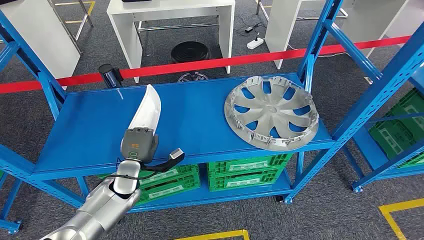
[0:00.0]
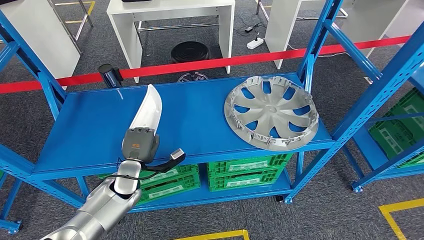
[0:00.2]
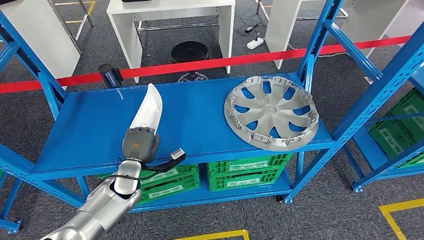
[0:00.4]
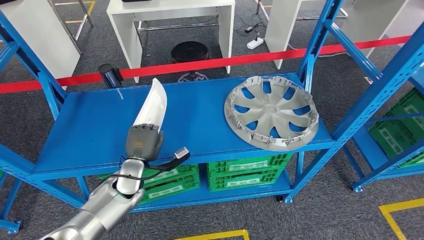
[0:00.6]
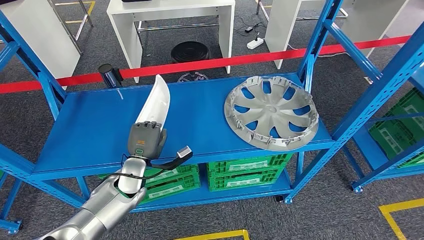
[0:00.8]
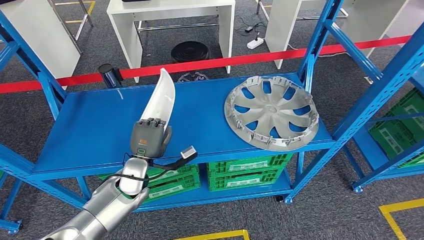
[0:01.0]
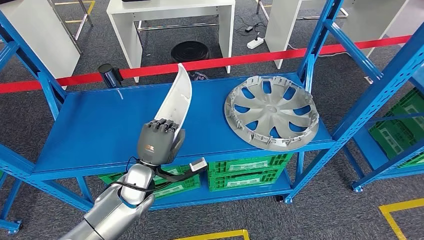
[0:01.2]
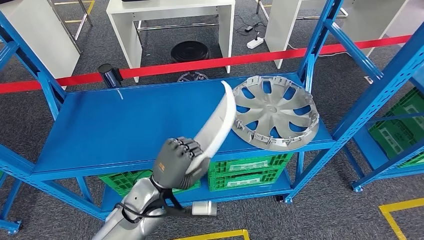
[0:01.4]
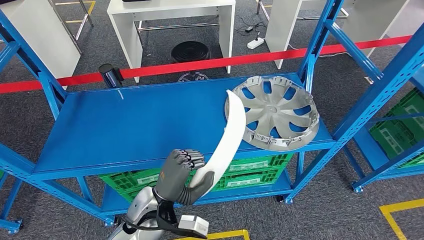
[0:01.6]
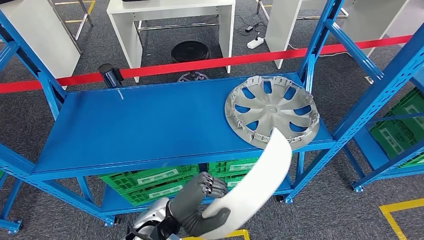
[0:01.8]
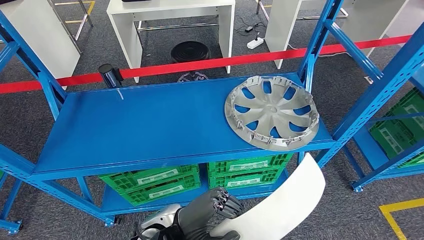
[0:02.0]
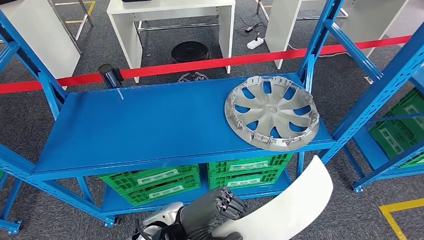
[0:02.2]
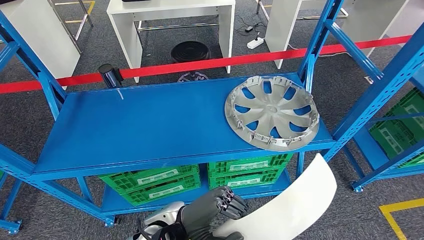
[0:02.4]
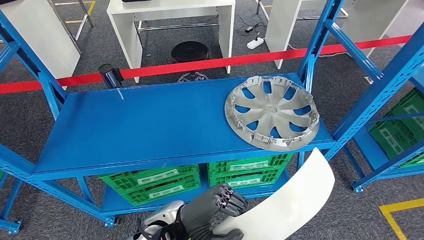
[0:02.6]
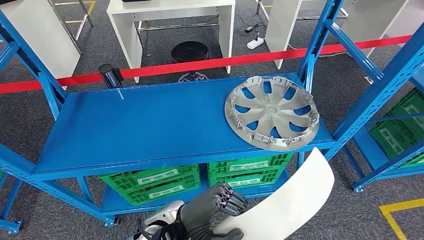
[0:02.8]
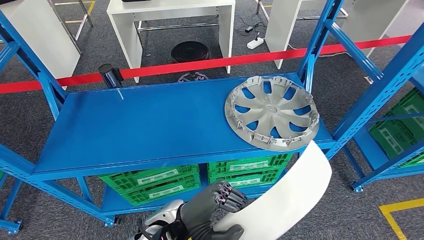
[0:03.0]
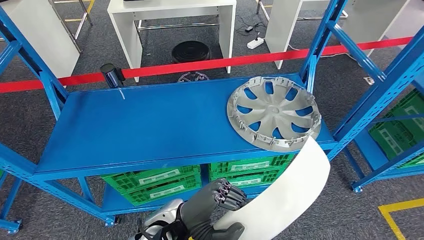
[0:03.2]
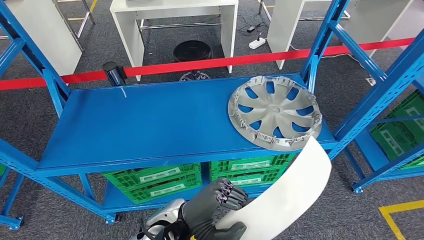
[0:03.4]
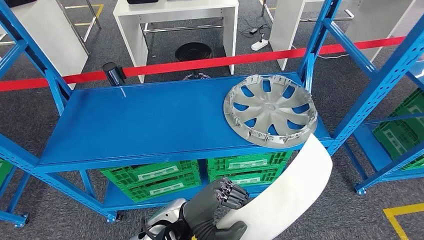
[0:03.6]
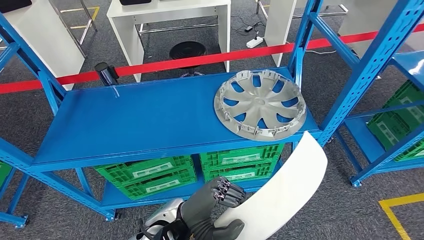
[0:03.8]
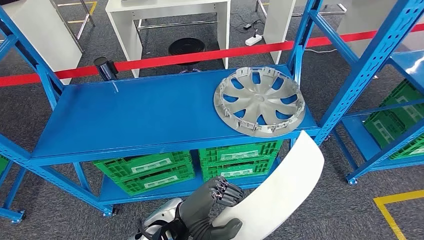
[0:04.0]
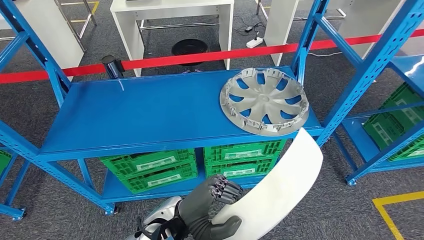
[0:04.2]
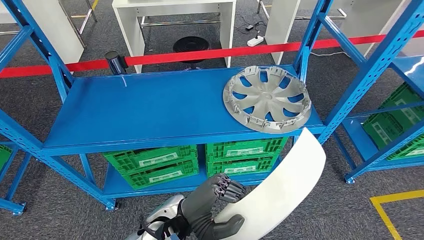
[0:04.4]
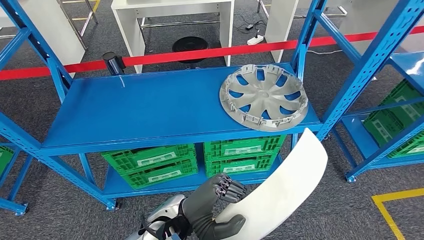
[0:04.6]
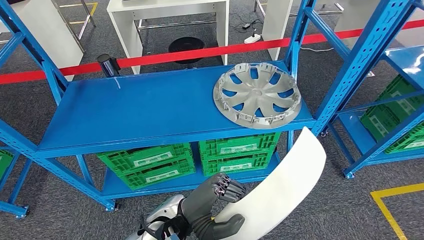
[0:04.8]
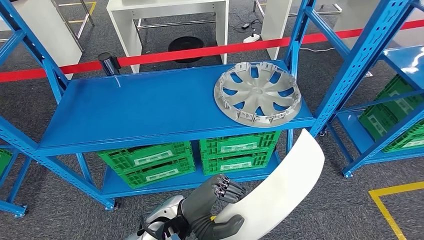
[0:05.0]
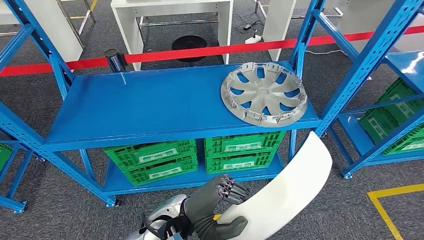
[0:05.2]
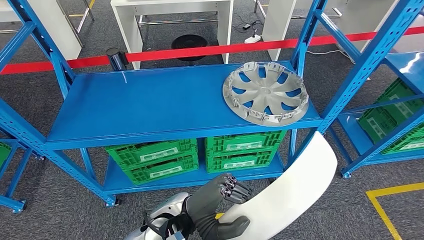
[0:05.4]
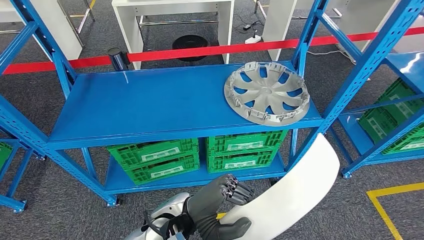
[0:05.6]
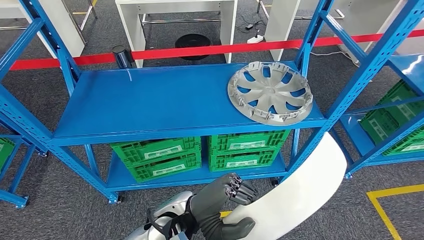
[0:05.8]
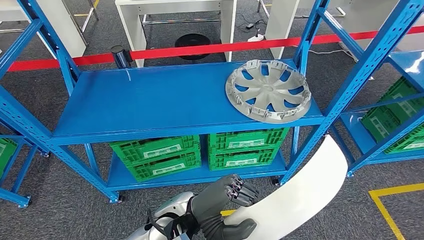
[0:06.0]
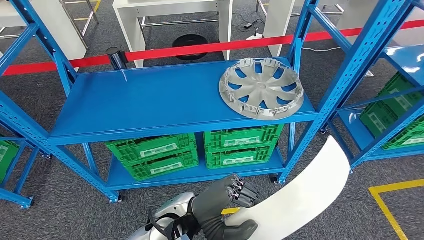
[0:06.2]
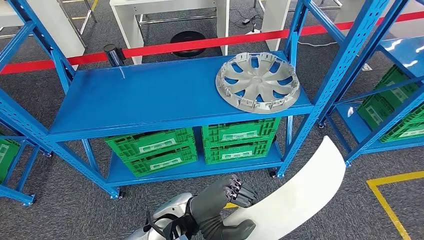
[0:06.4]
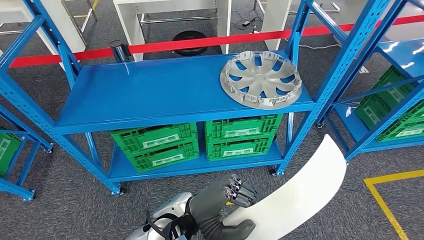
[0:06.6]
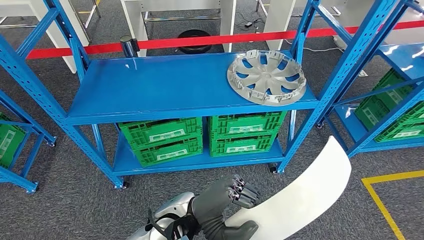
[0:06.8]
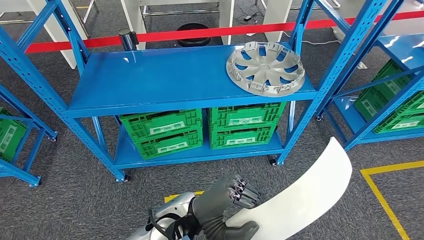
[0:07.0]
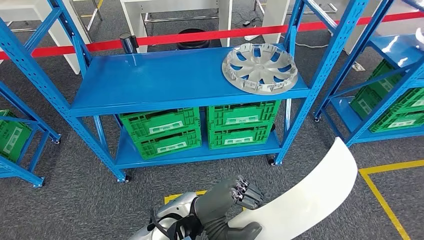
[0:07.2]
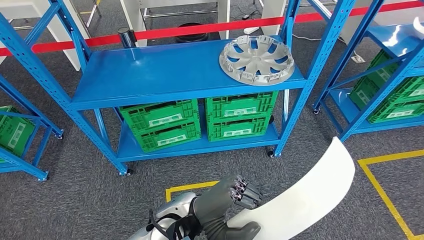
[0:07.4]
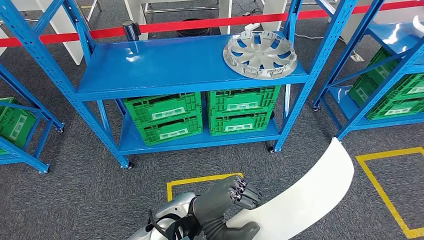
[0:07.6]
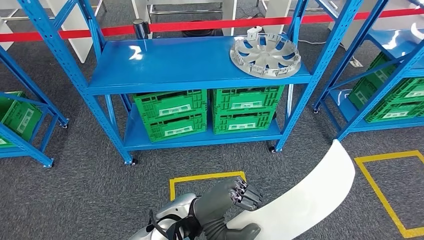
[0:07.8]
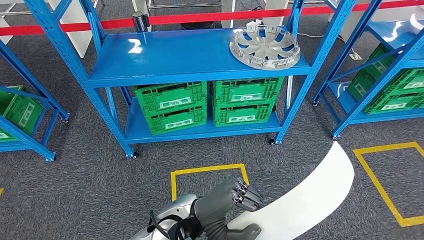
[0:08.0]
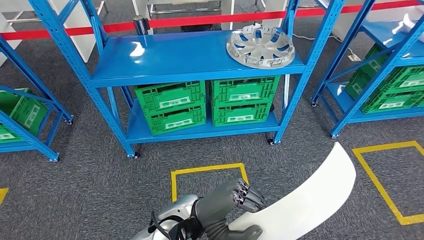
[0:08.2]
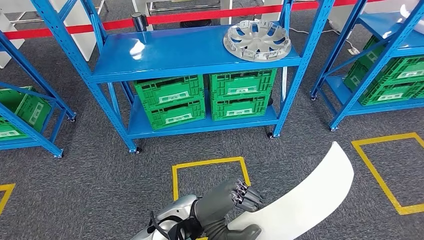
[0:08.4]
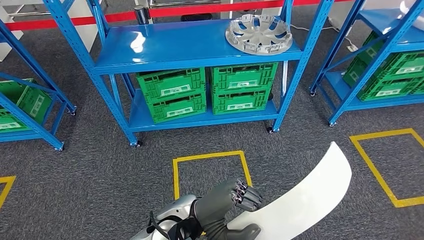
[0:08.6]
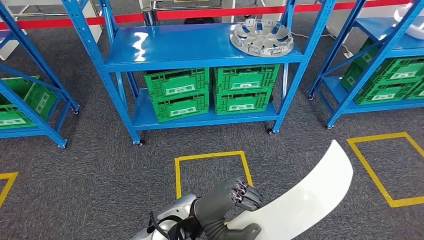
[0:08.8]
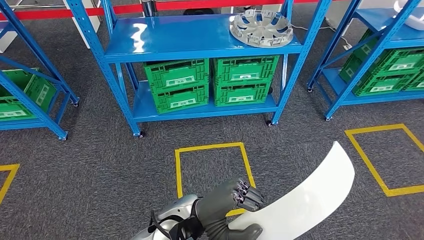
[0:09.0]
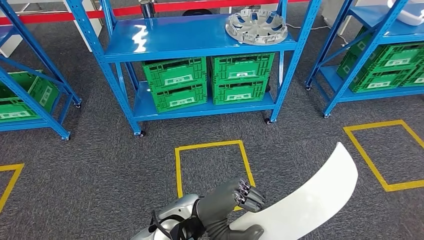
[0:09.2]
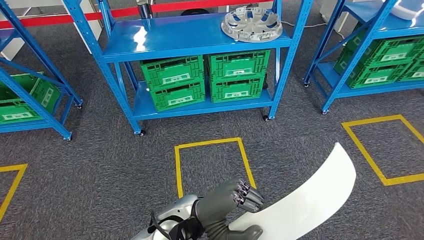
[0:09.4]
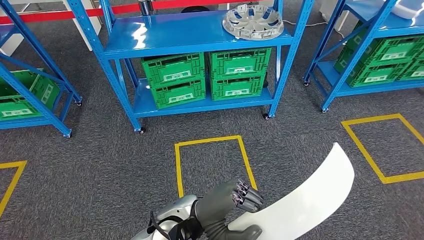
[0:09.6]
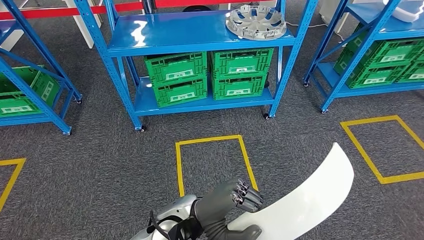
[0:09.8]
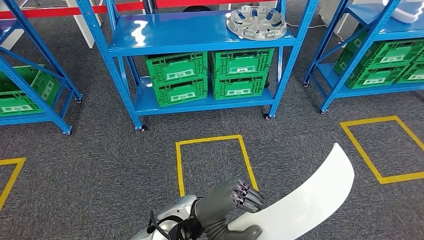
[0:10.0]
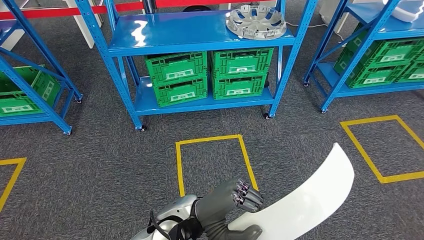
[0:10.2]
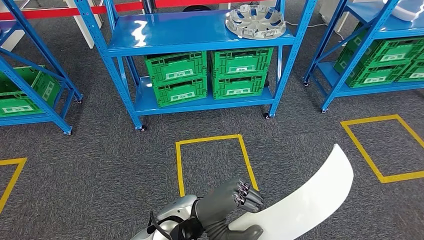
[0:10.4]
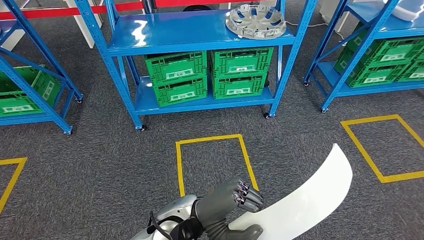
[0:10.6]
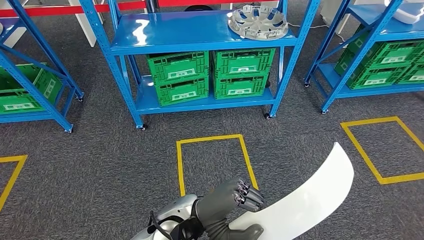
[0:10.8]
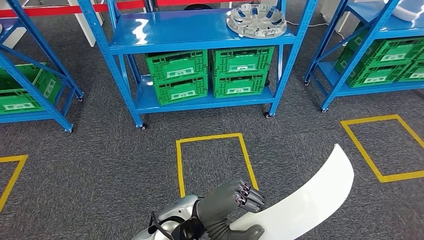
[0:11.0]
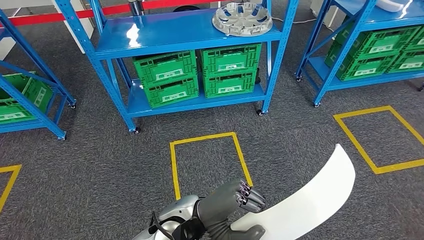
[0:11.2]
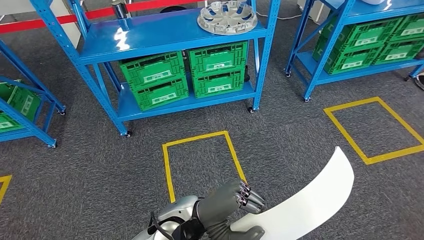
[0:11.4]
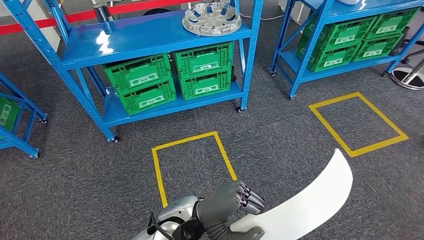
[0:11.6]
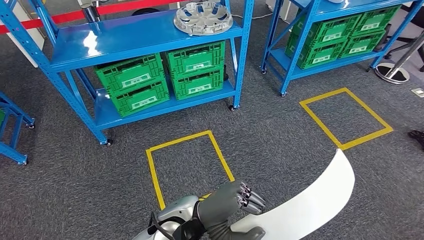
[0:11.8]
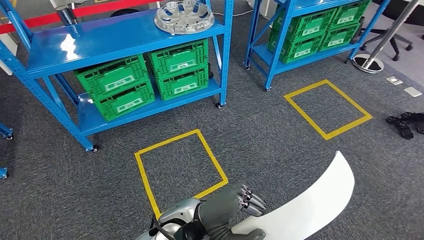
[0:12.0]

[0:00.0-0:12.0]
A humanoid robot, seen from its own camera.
Step, 0:00.0 to 0:03.0: Pick up the small component from the shelf.
0:01.6 to 0:03.0: The left hand goes roughly 5 cm to the right.

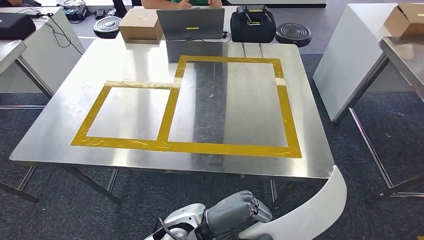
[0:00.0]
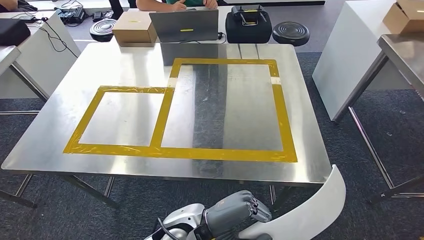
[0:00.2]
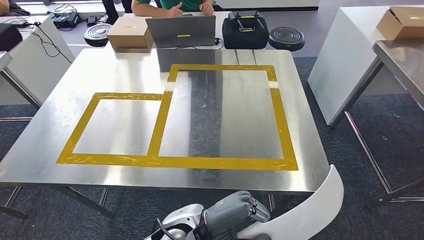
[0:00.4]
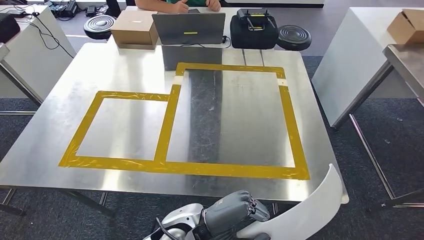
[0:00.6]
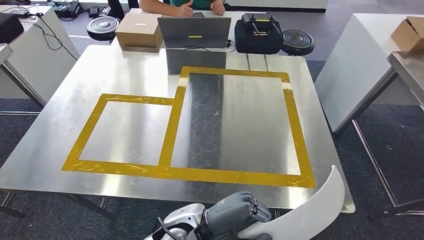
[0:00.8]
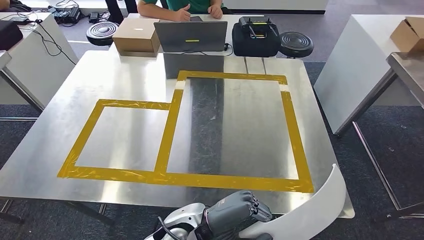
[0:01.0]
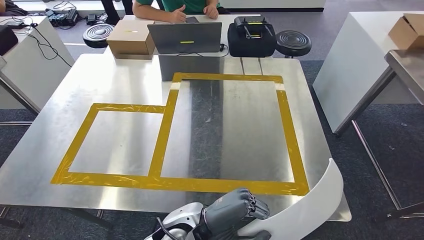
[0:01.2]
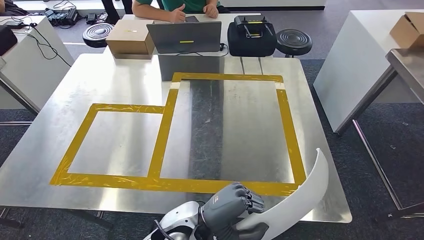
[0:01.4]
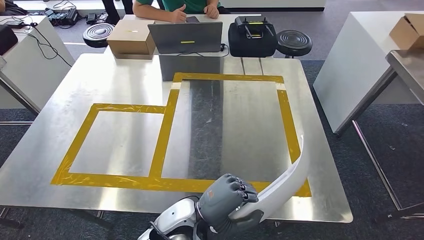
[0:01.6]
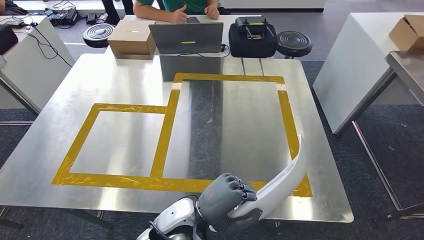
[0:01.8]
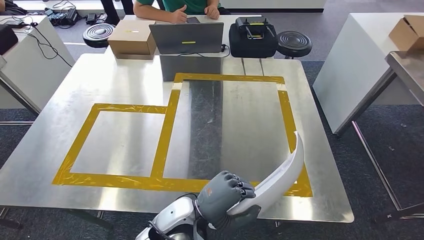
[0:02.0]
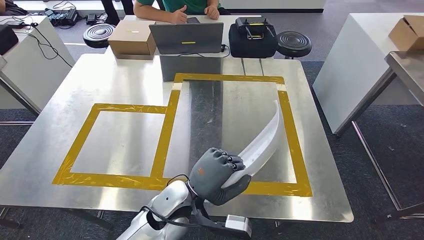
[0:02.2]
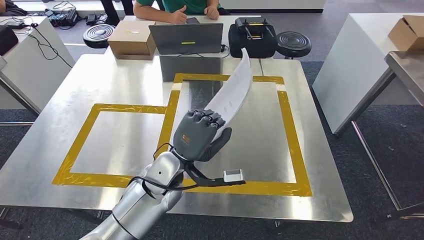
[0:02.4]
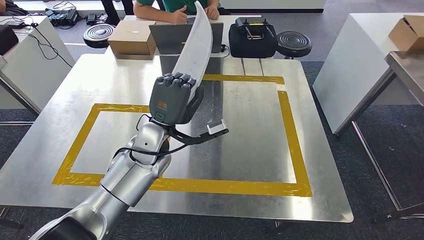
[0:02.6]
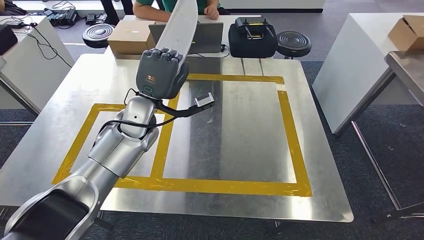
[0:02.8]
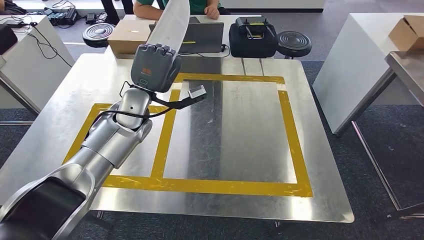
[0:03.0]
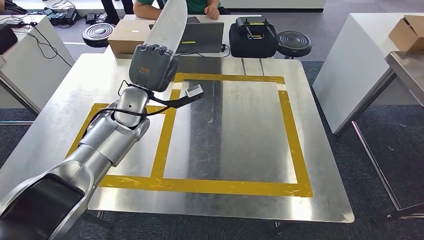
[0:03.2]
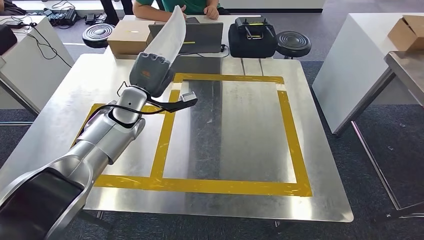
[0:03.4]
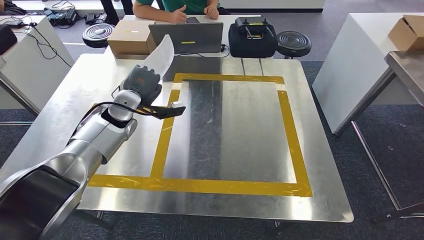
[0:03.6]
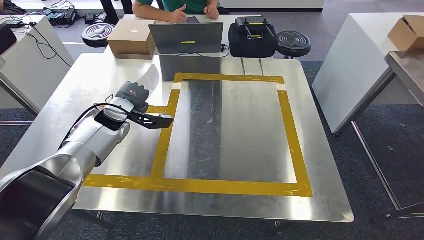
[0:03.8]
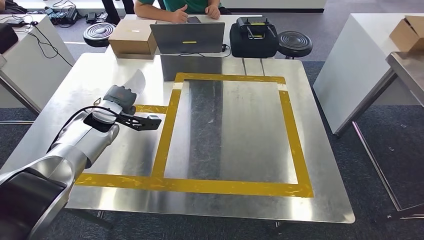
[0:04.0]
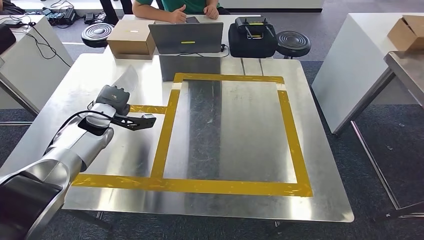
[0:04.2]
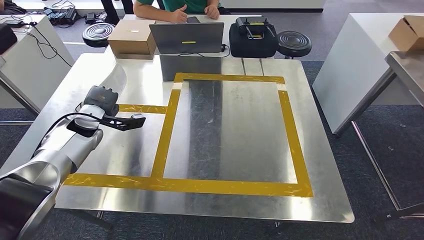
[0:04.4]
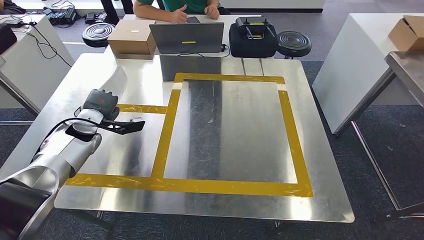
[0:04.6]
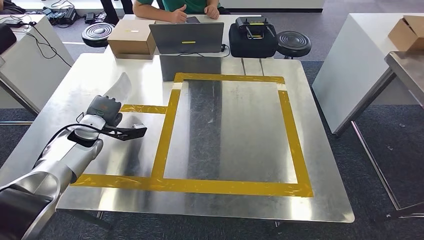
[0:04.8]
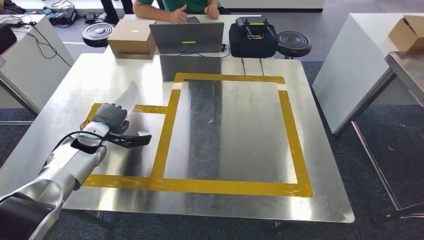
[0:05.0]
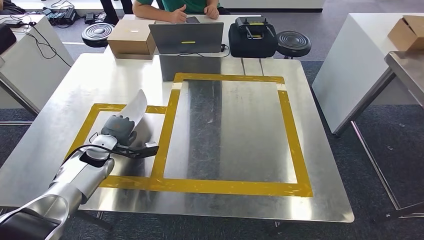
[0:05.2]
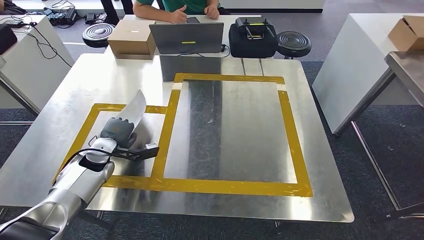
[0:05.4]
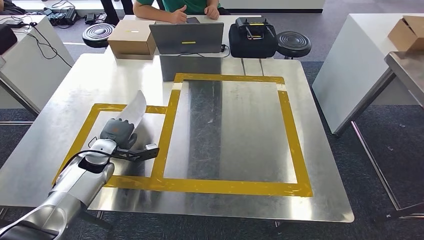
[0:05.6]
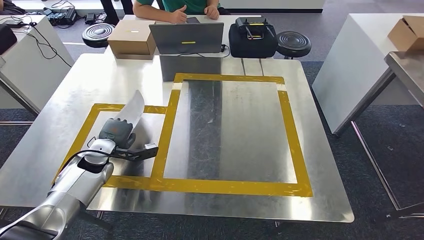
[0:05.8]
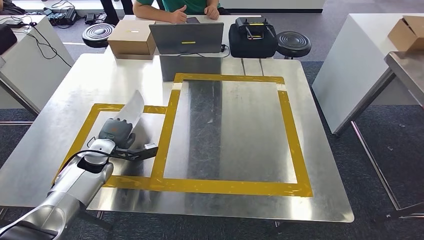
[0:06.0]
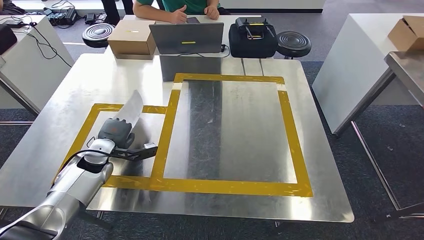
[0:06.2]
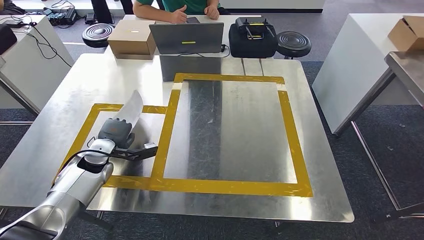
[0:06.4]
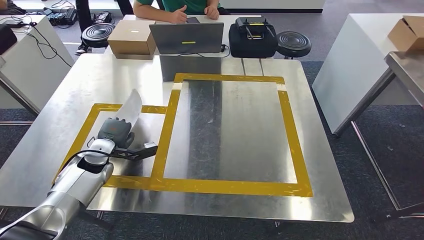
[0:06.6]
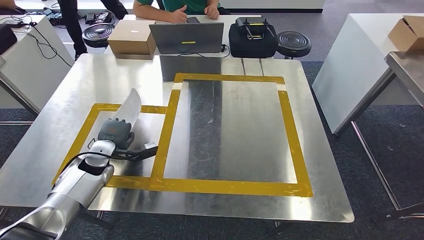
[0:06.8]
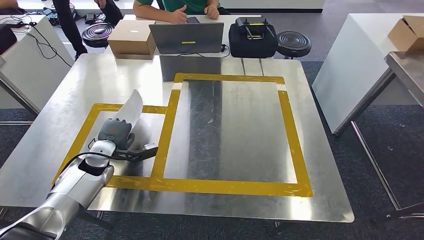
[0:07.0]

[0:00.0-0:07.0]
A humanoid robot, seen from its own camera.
Step, 0:00.0 to 0:02.0: Move the small component to the workbench.
0:02.8 to 0:04.2: The left hand heads to the left and downward, covering approximately 20 cm.
0:04.2 to 0:05.6: The left hand is displaced downward and backward by roughly 10 cm.
0:05.6 to 0:07.0: Neither hand changes place.
